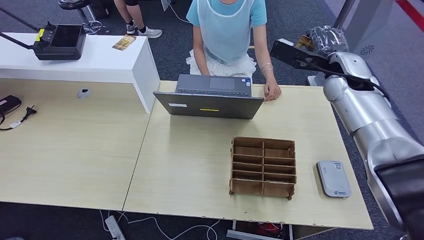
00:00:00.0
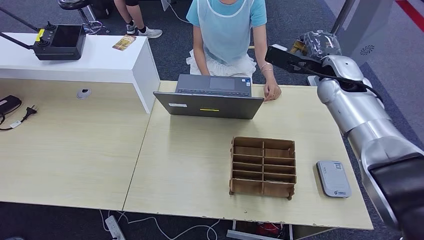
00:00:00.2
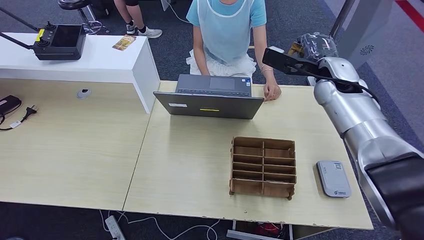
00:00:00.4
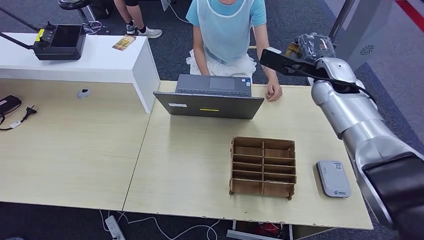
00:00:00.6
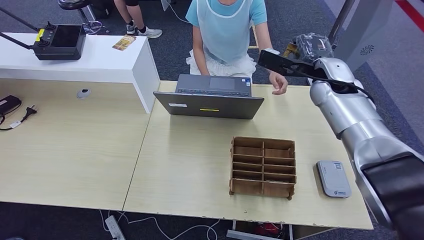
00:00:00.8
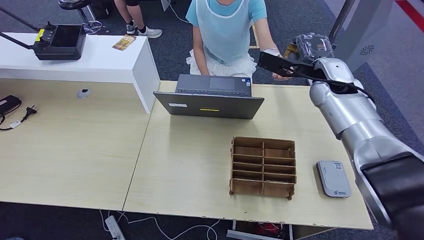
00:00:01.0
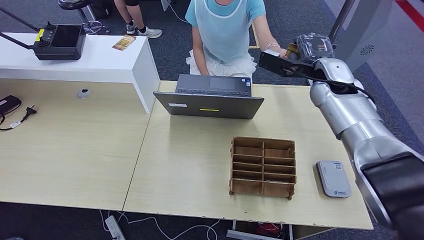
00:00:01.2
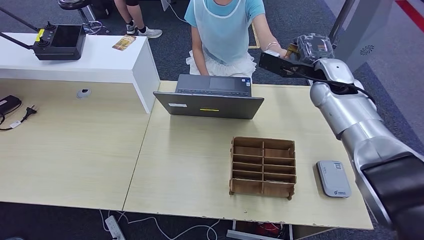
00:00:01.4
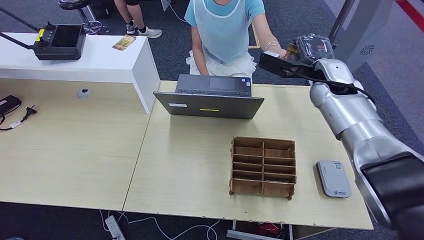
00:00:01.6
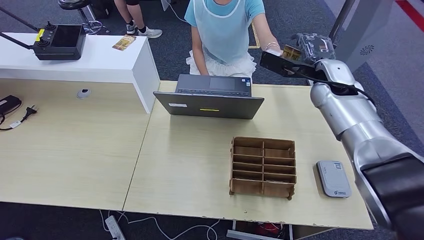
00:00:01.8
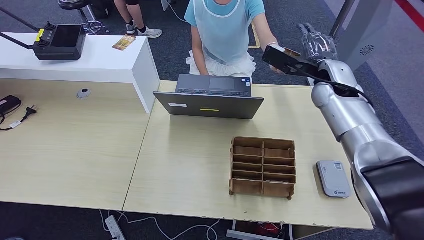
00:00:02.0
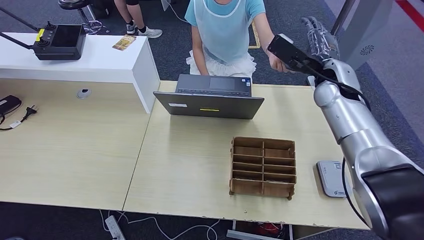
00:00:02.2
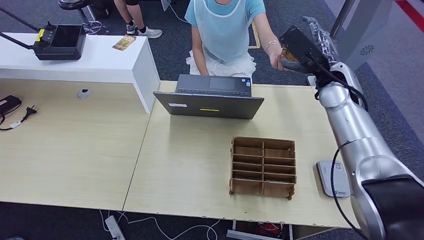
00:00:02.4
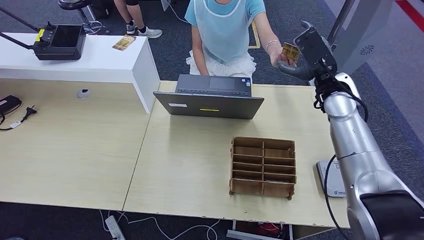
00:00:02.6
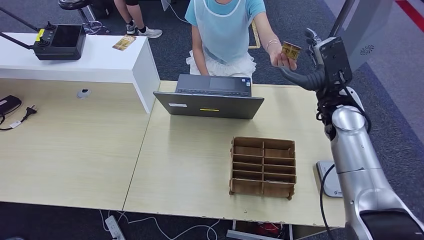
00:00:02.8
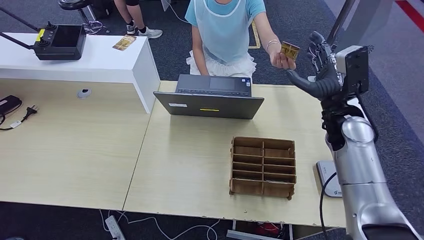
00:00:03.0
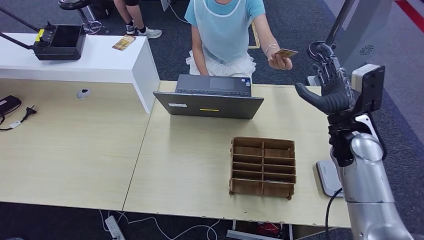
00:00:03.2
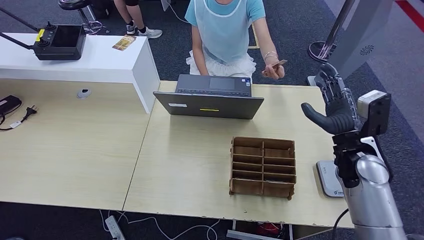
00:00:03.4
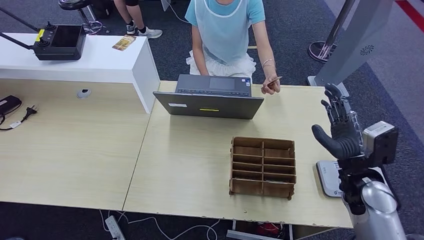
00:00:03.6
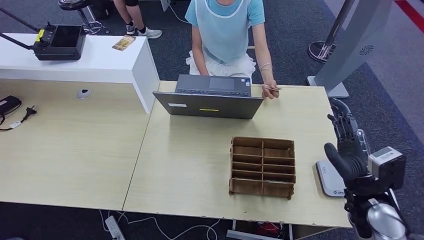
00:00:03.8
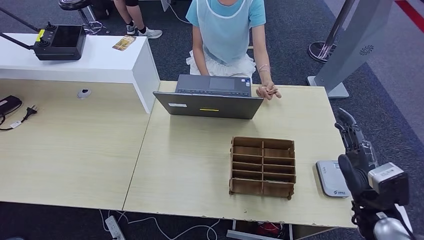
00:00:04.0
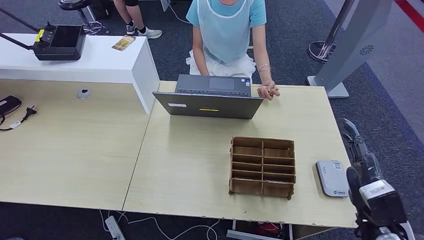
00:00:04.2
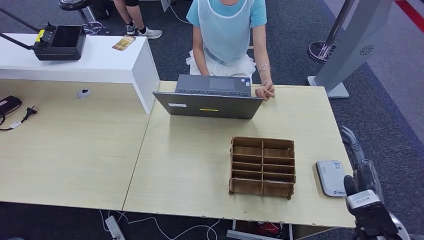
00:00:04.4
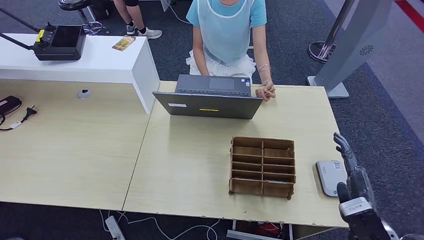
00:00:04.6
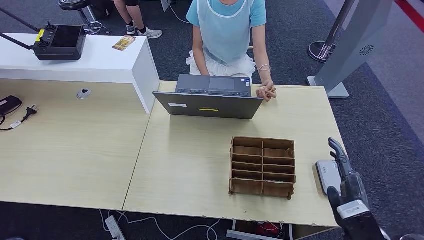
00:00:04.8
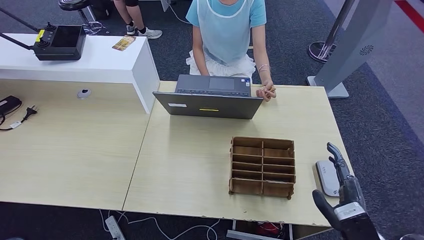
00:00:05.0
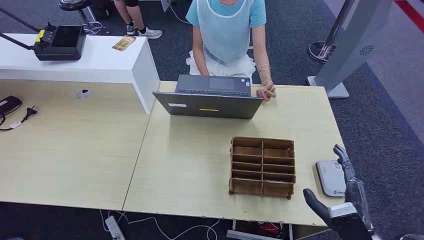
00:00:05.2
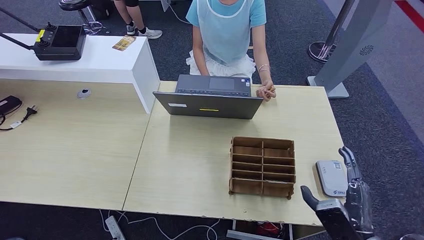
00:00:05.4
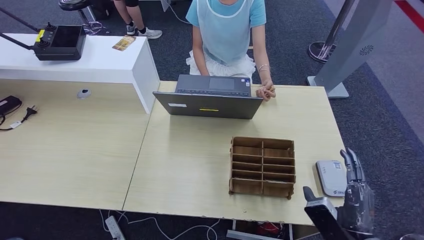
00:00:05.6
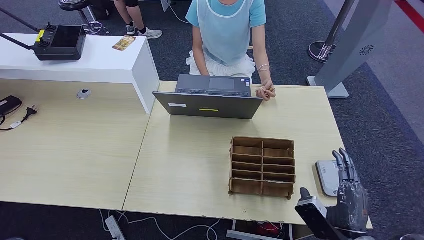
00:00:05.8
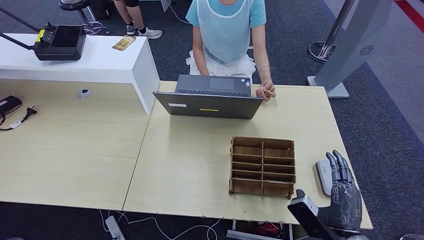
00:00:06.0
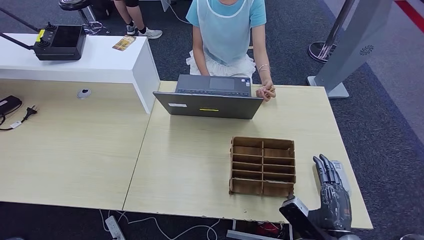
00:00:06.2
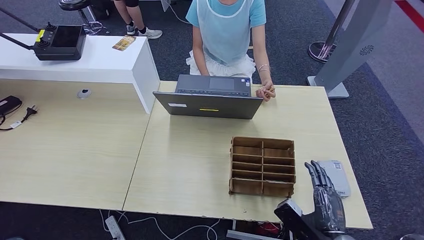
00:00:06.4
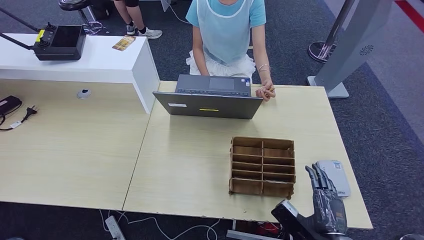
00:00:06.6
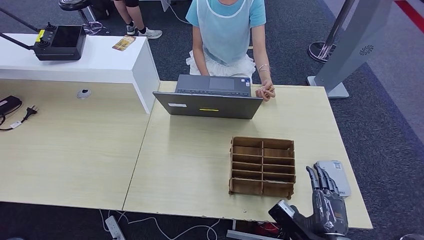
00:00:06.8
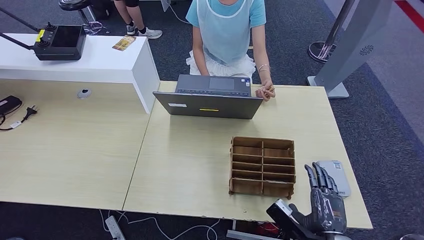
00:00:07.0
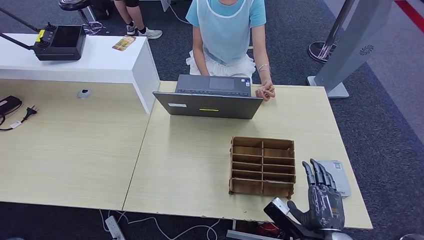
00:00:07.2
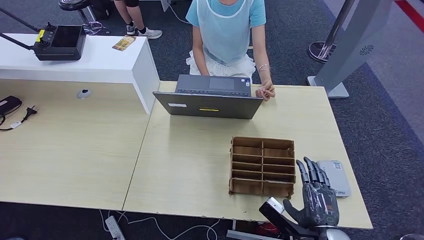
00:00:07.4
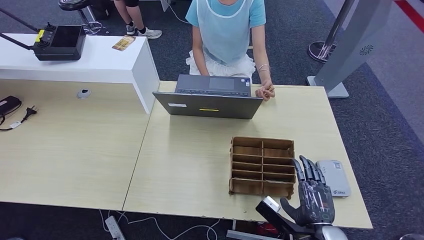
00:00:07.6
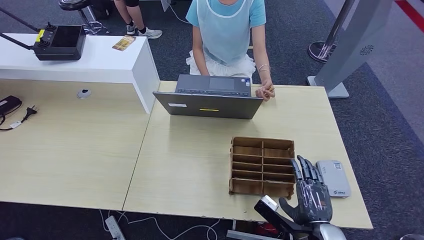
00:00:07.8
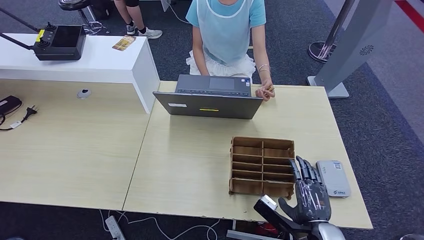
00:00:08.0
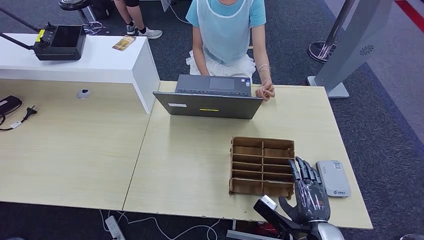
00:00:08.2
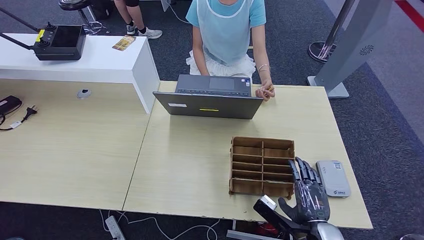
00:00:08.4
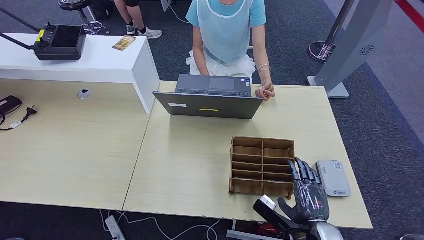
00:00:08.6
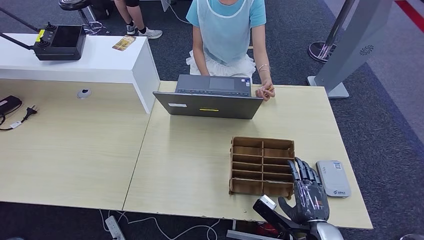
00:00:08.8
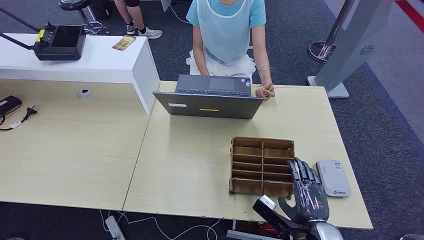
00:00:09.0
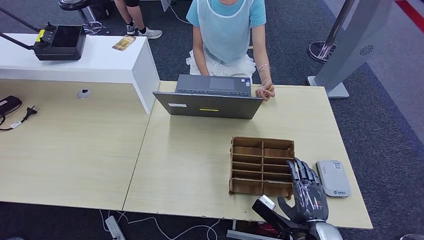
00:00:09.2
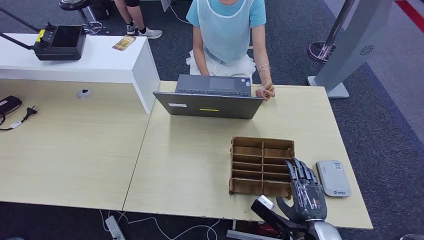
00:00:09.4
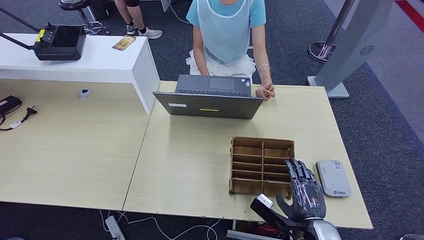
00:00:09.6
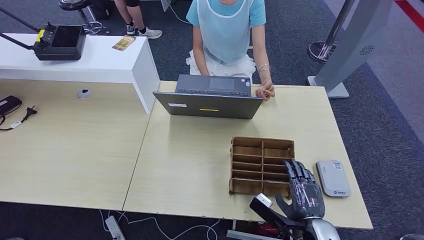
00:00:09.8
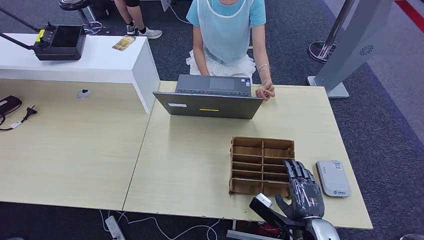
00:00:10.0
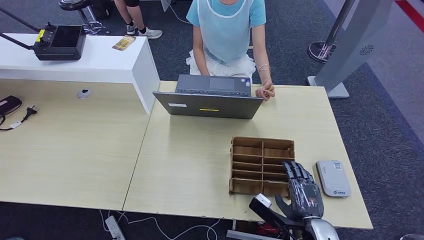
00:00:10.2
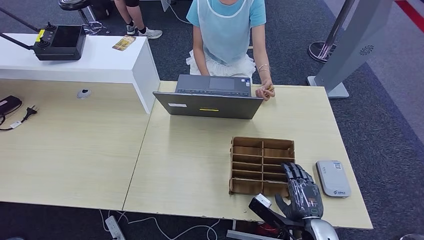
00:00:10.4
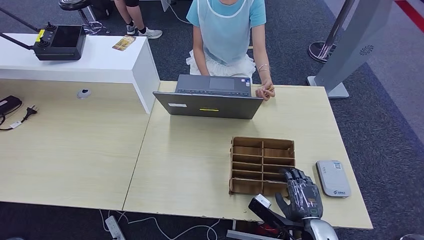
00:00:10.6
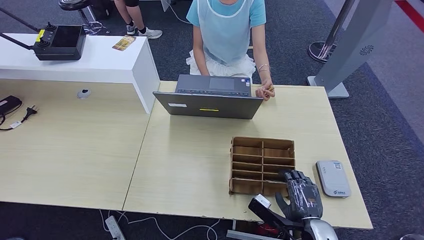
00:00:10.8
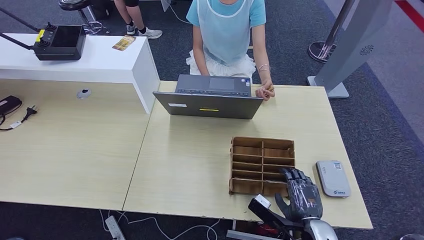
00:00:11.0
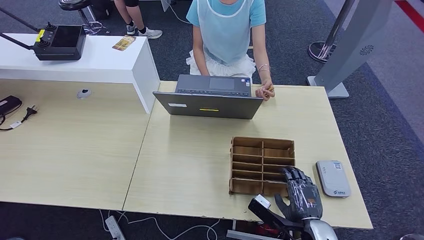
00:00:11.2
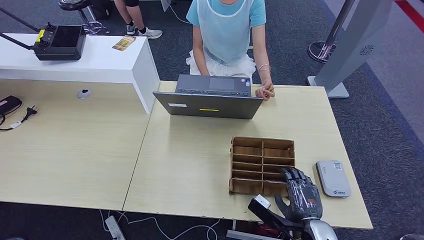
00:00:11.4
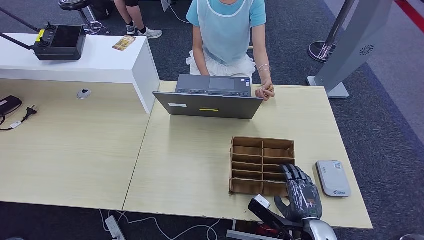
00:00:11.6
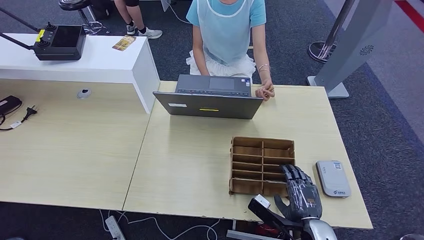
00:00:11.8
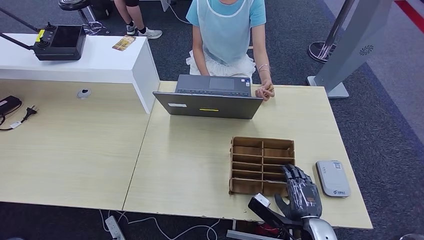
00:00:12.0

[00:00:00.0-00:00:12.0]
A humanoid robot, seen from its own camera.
Step, 00:00:00.0 to 00:00:04.2: Hand the ID card to the person.
00:00:00.0 to 00:00:01.6: There are only small adjustments of the hands.
00:00:01.6 to 00:00:03.0: The right hand is displaced backward by roughly 10 cm.
00:00:03.0 to 00:00:04.4: The right hand moves backward and downward, some 25 cm.
00:00:04.4 to 00:00:06.0: The right hand travels to the left by some 5 cm.
00:00:07.6 to 00:00:09.0: The two hands keep their place.
00:00:09.0 to 00:00:10.4: Both hands stay about where they are.
00:00:10.4 to 00:00:12.0: Both hands stay about where they are.

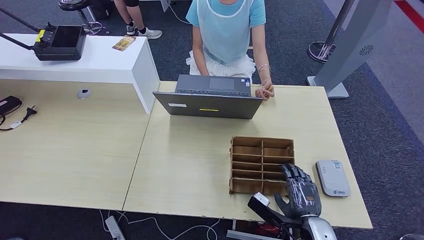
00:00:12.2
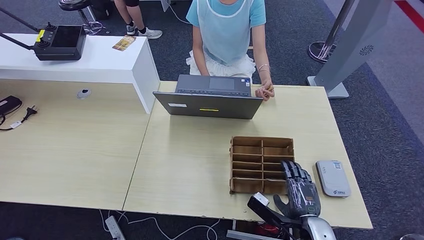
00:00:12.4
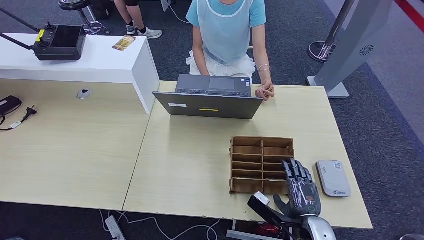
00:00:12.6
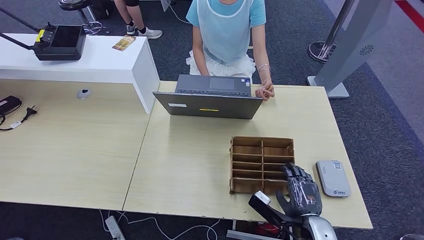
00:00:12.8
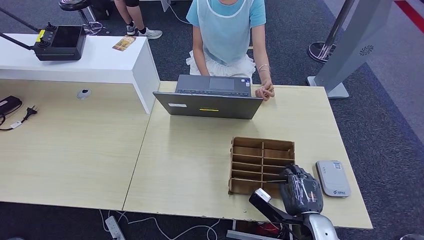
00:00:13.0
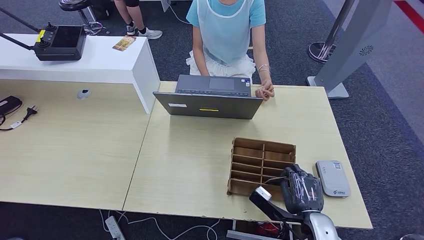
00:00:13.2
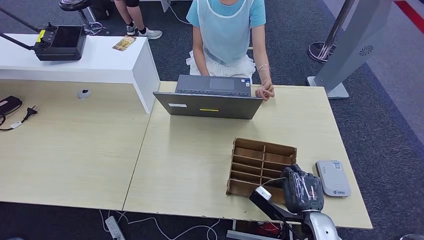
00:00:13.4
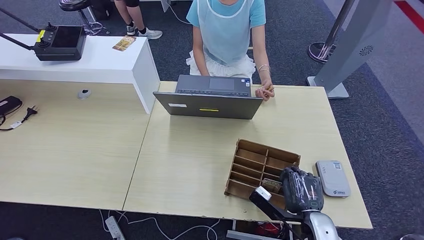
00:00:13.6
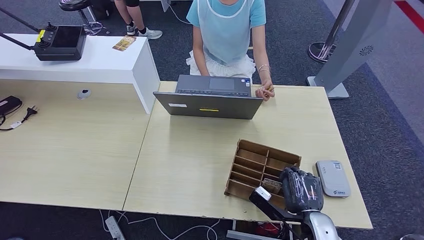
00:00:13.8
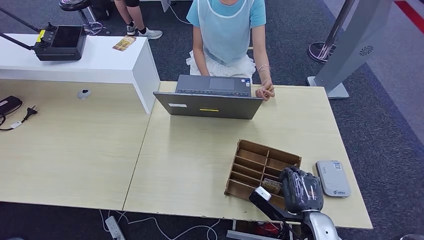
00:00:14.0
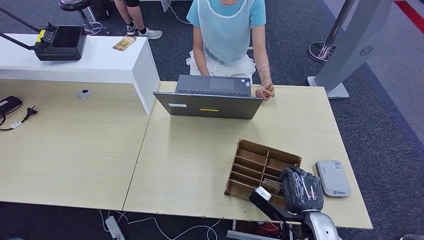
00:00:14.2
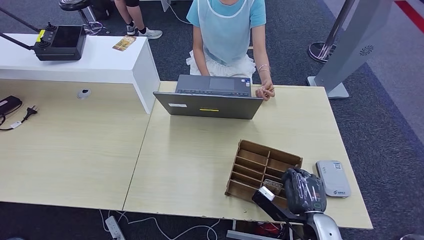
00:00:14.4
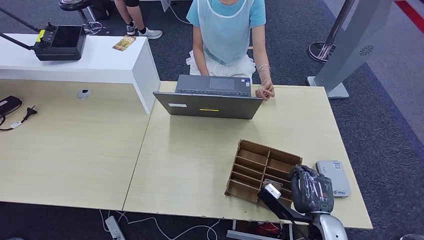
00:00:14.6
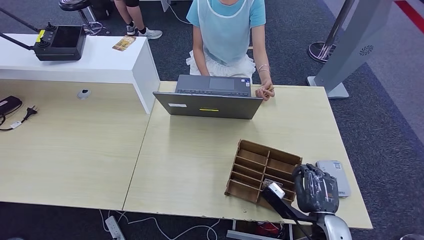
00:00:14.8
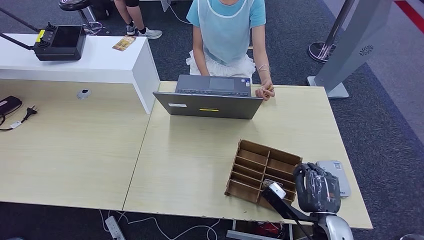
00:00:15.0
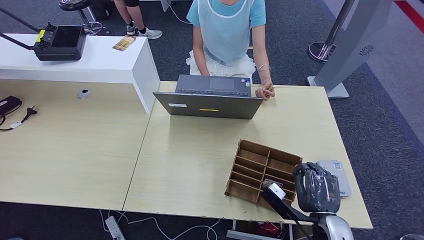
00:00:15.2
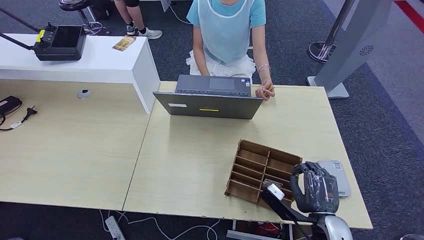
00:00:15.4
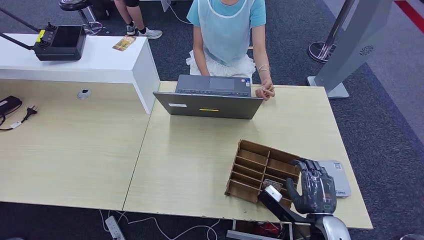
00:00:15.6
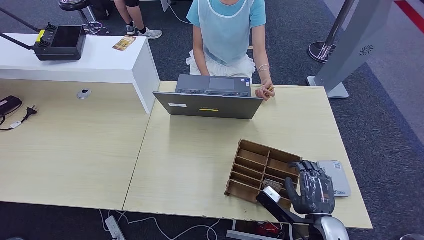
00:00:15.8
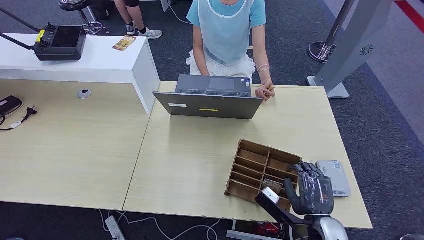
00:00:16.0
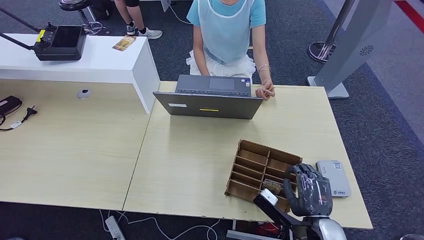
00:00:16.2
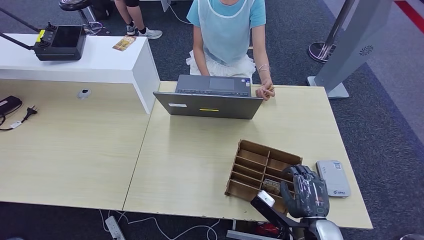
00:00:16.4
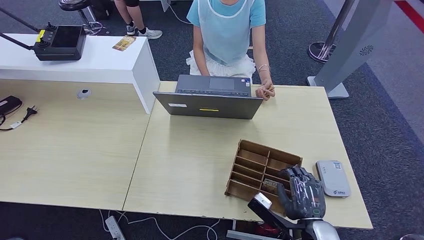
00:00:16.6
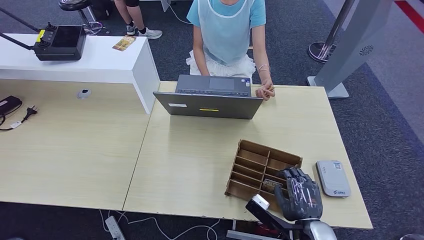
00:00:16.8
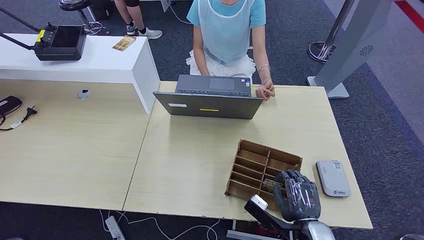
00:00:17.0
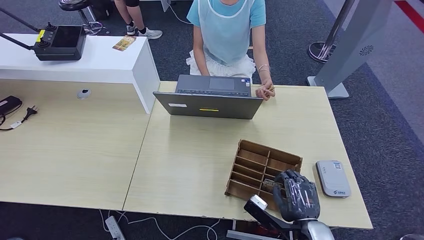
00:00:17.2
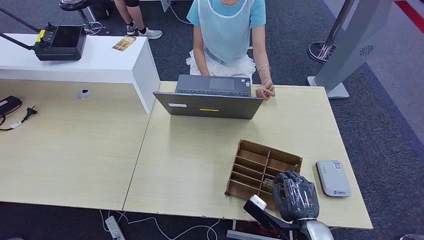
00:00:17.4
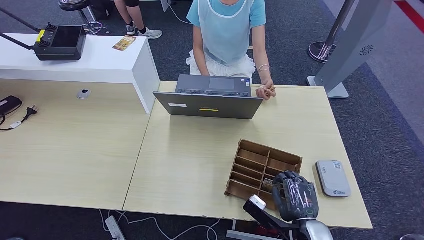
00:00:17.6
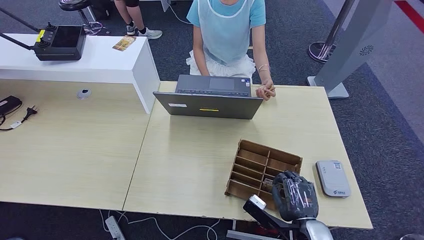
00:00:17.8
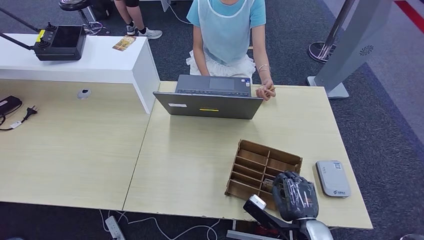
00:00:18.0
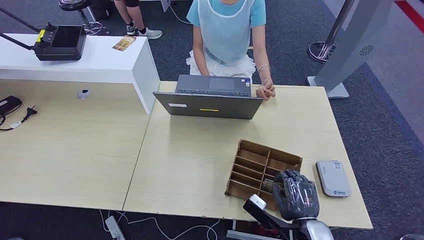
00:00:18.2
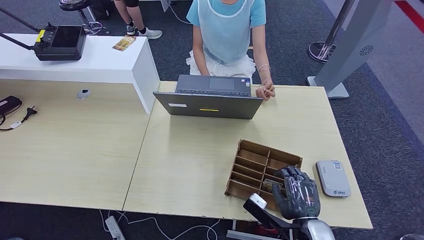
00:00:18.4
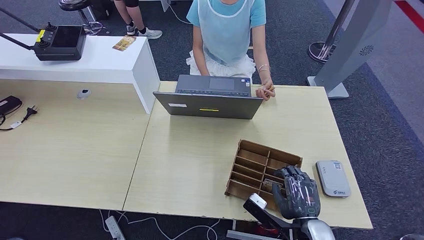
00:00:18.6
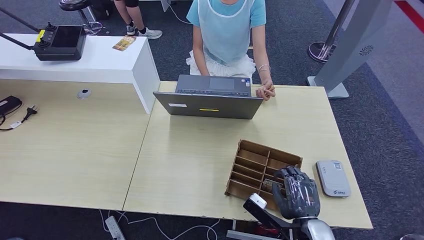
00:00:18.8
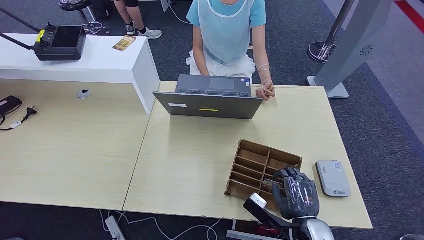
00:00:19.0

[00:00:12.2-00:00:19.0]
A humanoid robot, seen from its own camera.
00:00:12.2 to 00:00:13.6: Neither hand changes place.
00:00:13.6 to 00:00:17.6: The hands make only small movements.
00:00:17.6 to 00:00:19.0: Both hands stay put.
